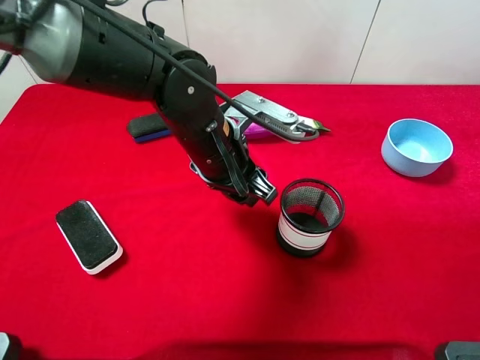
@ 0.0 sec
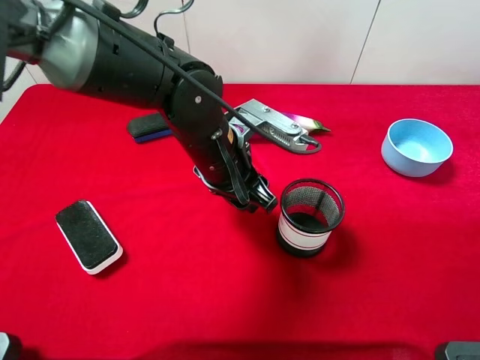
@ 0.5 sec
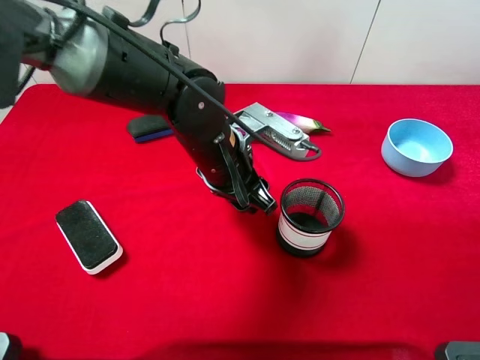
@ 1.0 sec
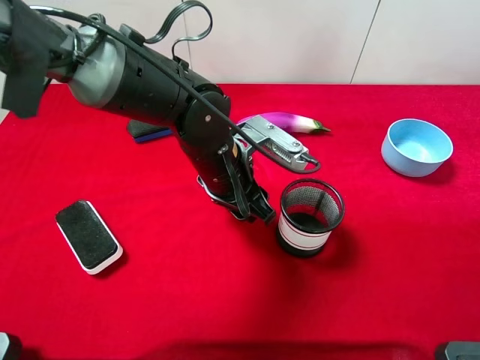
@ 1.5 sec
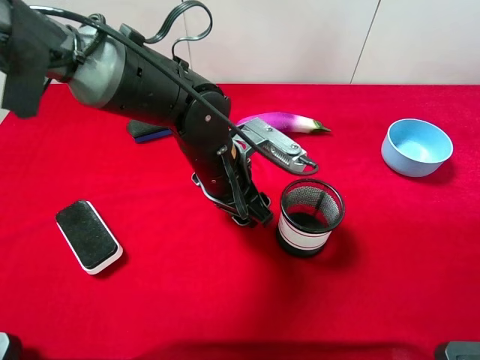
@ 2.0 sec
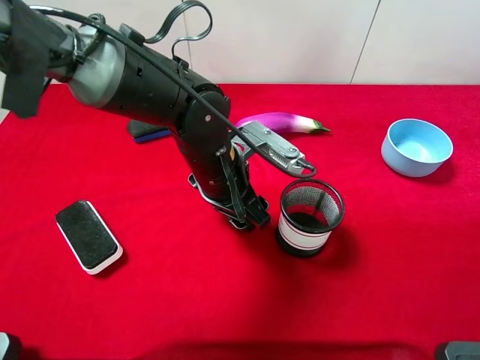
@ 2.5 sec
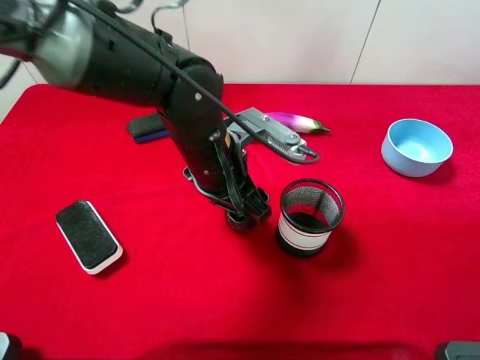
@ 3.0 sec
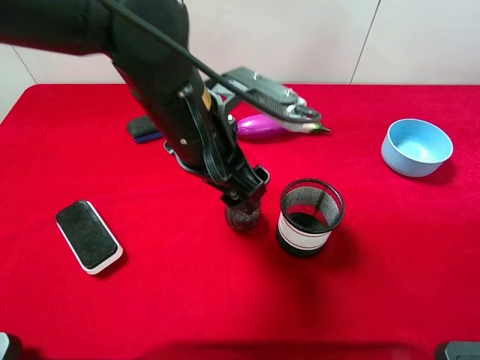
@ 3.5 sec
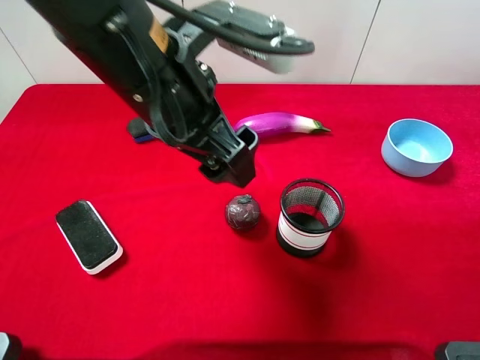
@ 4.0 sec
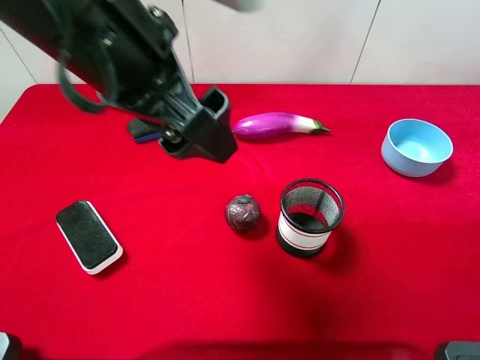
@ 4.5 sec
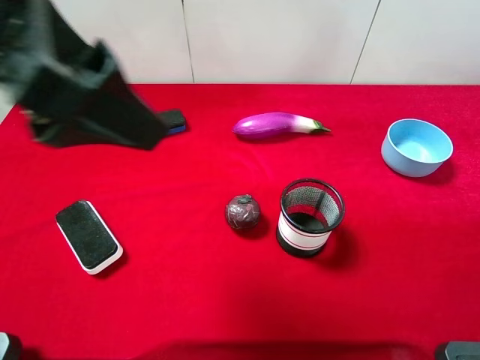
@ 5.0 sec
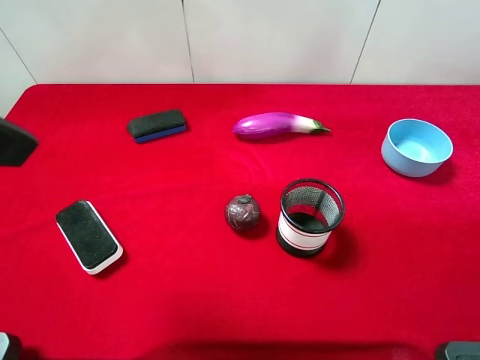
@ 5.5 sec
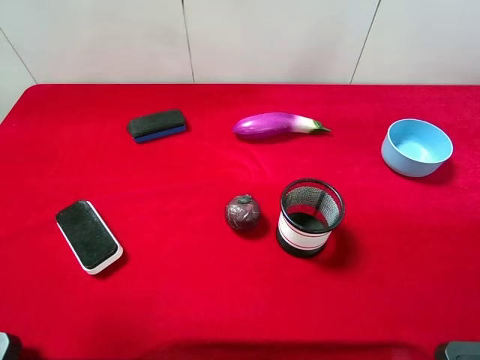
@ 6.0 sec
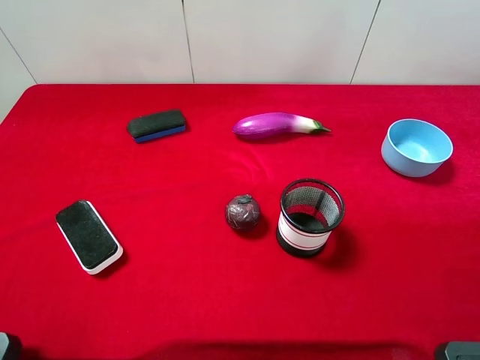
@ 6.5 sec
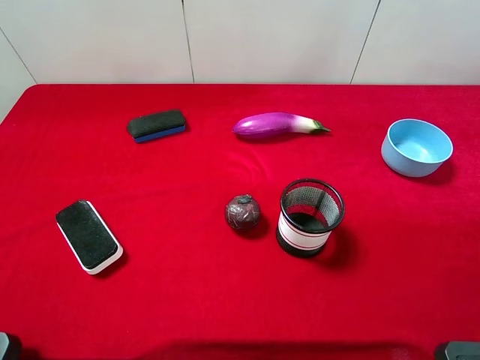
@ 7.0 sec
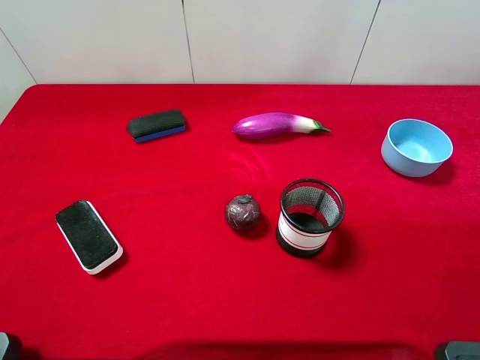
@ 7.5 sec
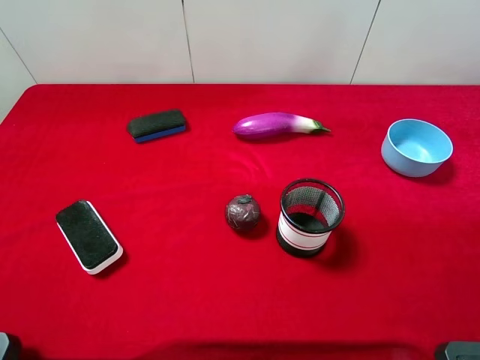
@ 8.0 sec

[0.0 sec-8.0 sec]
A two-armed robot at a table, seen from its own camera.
Task of the whole recording: the gripper move the object.
Step, 0.0 sec to 3.5 sec: Place the mangosteen on the table with the left gripper.
0.0 sec to 2.0 sec: There are only small adjustments of the grippers.
2.0 sec to 4.0 sec: The left gripper is displaced upward by roughly 15 cm, and opens.
4.0 sec to 6.0 sec: The left gripper travels to the left and backward by approximately 25 cm.
